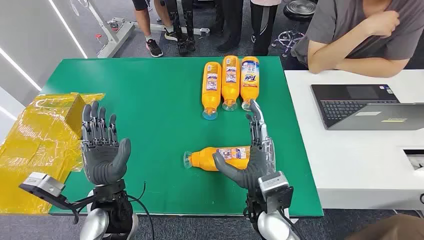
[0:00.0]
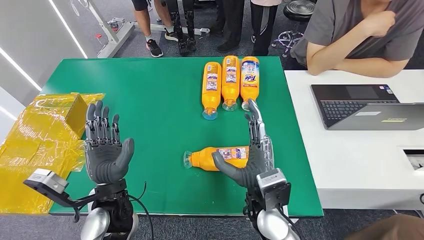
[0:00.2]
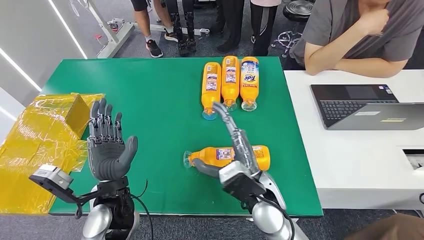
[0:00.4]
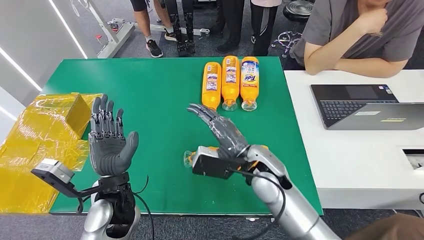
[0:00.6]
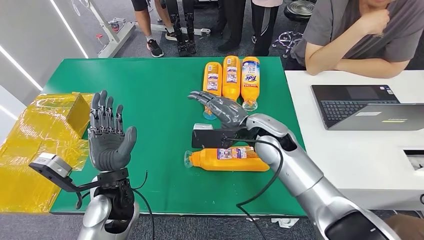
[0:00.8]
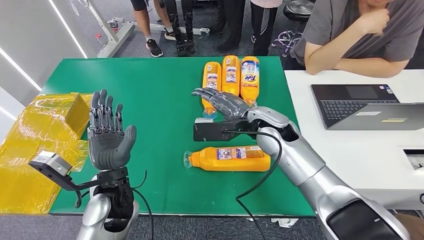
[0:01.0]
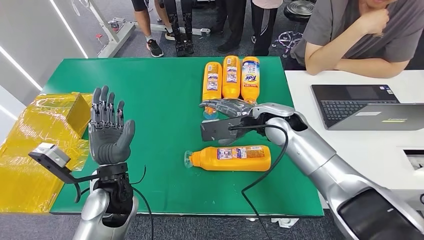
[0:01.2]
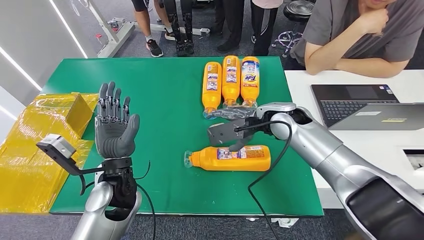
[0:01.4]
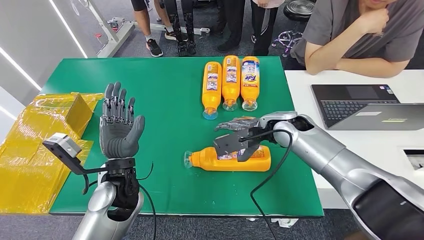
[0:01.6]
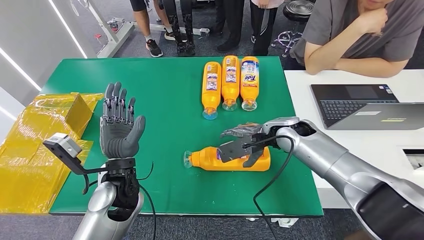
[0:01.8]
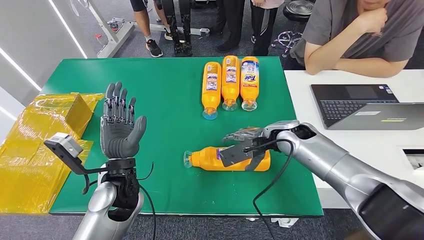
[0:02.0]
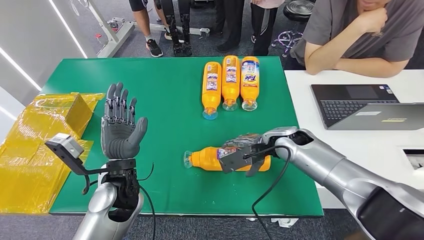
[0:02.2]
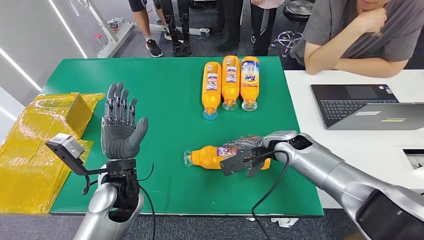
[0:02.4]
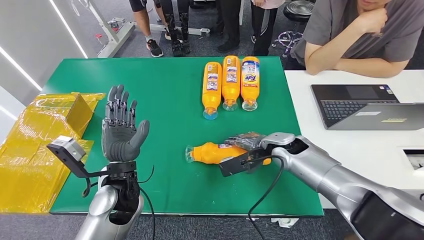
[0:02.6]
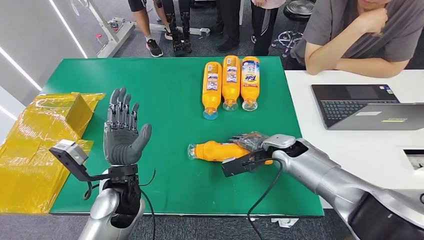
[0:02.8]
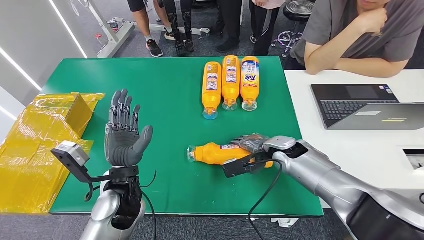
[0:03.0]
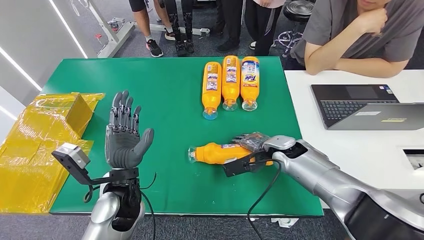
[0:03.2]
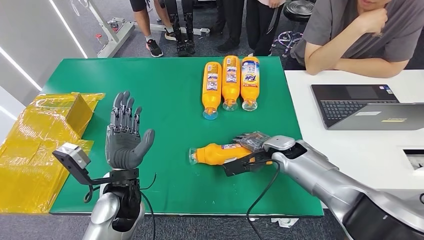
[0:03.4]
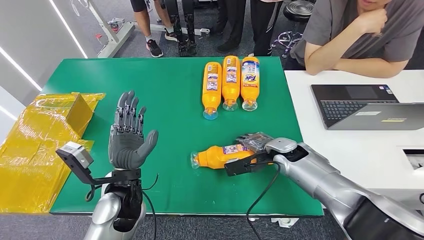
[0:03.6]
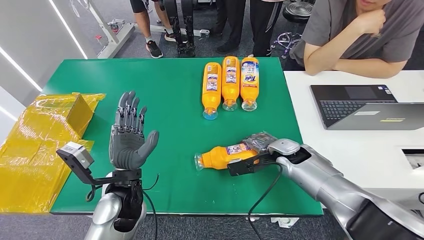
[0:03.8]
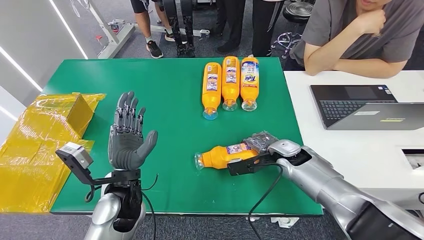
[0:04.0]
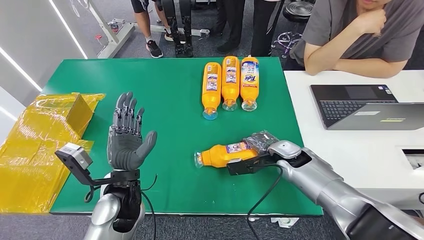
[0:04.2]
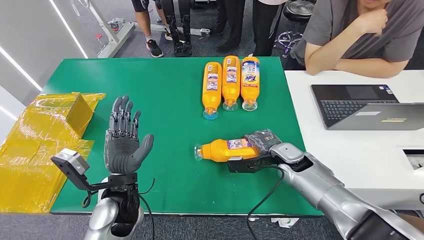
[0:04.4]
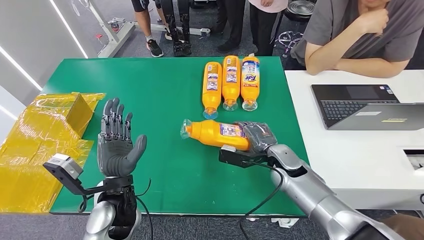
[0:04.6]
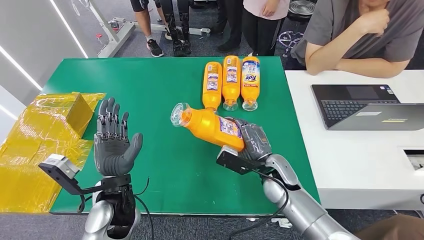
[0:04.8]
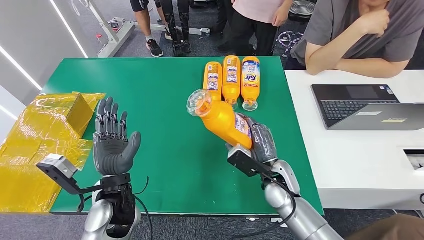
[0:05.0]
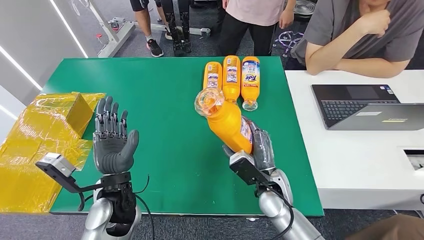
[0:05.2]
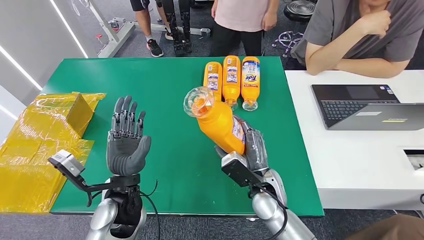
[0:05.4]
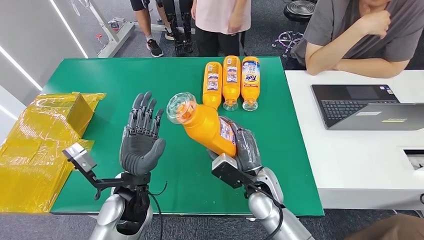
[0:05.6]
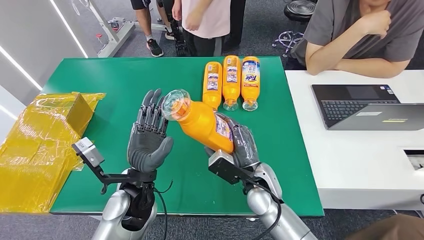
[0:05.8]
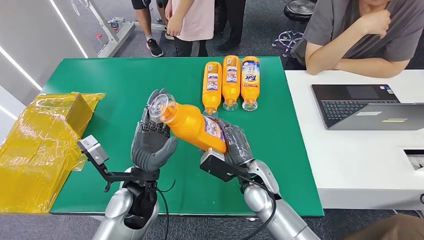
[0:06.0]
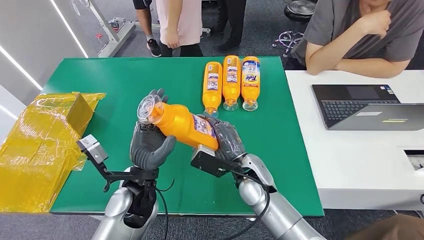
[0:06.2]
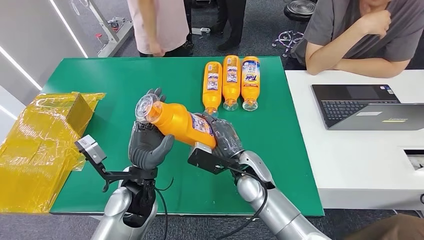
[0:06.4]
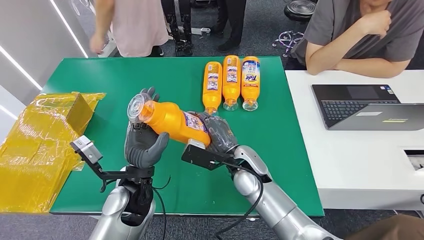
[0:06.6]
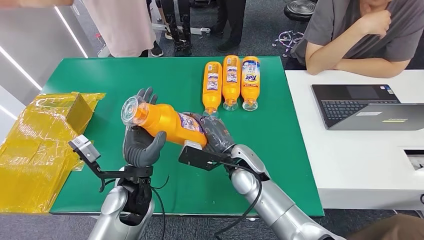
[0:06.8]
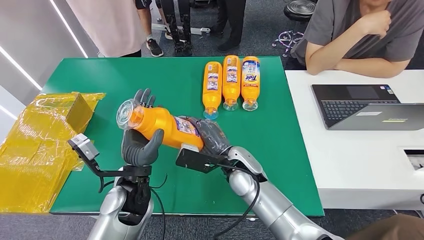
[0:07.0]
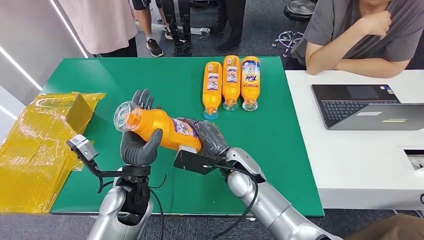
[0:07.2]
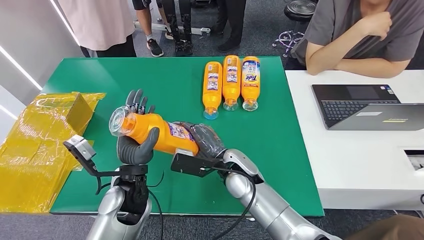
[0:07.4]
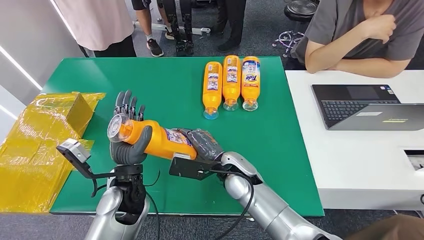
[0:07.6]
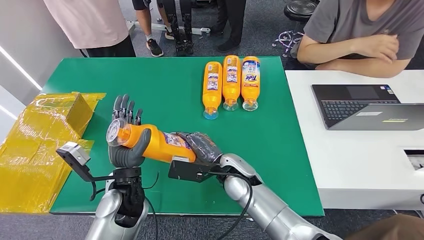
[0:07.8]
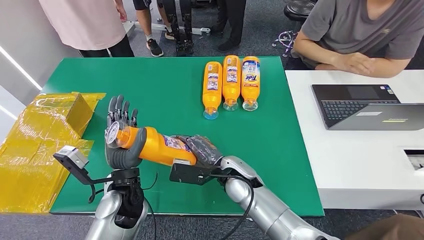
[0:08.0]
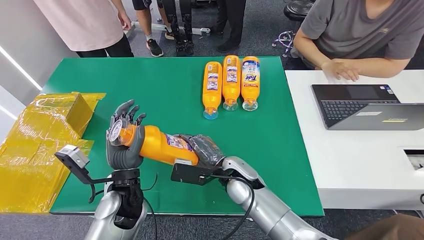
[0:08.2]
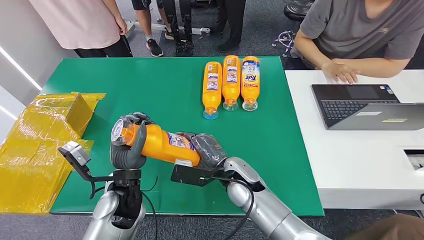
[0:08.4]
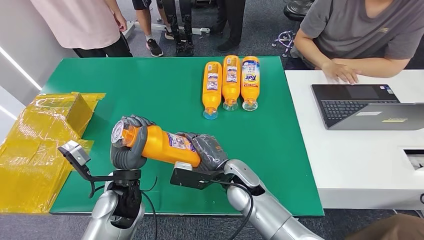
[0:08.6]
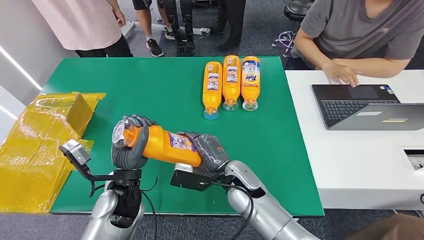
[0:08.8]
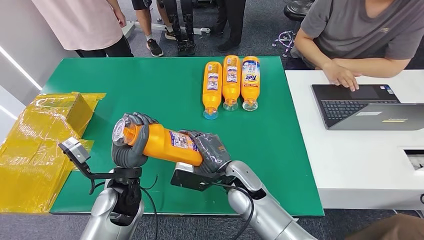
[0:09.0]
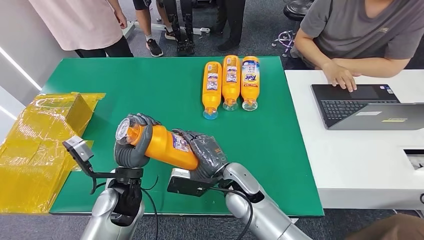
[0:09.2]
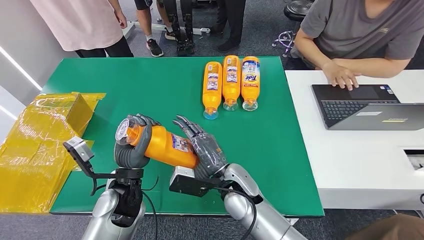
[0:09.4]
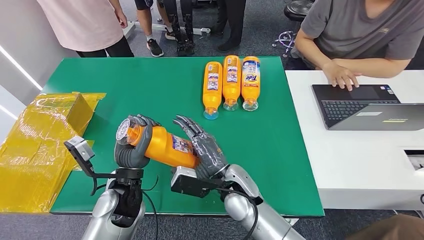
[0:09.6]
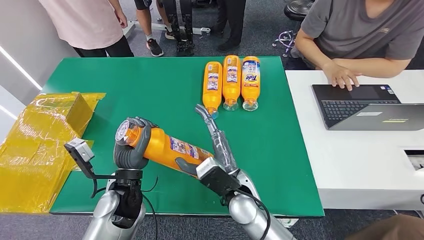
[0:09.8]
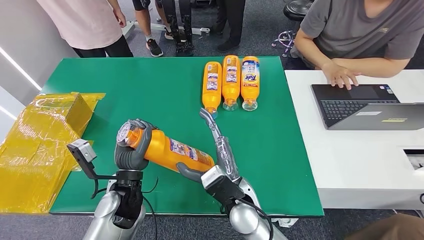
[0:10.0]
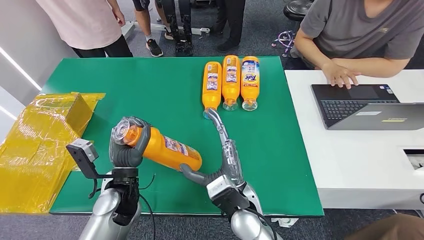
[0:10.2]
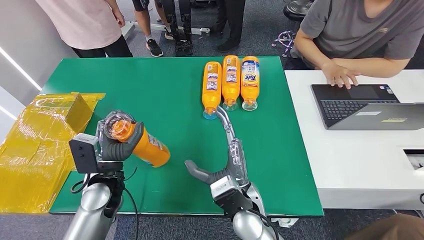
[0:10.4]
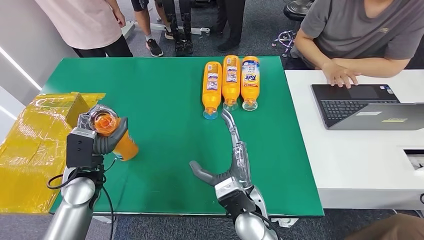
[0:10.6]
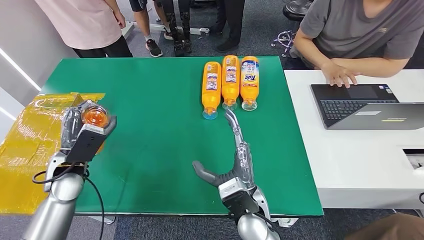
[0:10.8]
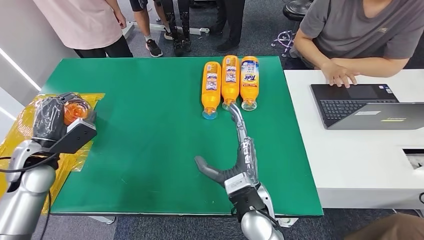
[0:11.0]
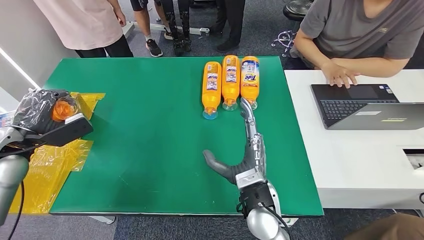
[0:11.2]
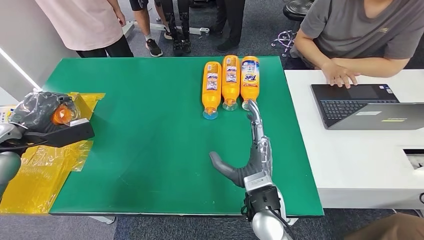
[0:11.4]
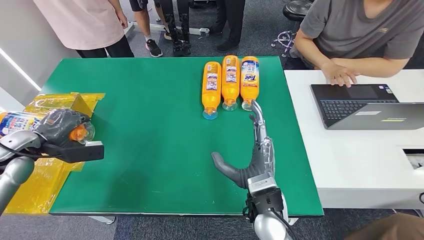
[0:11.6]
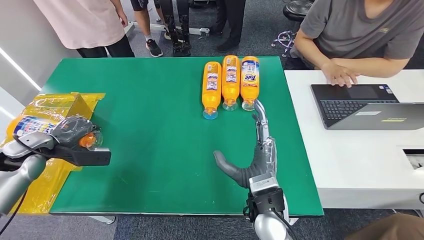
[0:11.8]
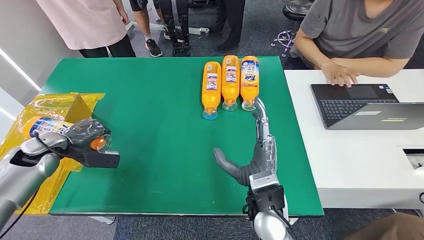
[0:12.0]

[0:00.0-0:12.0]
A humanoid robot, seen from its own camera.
Step, 0:00.0 to 0:06.2: Pick up the bottle from the table.
0:01.6 to 0:03.0: The right hand shifts roughly 10 cm downward.
0:03.0 to 0:04.4: The hands stay close to where they were, moving slightly.
0:07.6 to 0:09.0: The hands make only small movements.
0:09.0 to 0:10.4: The right hand moves backward, about 5 cm. The left hand travels to the left by about 5 cm.
0:10.4 to 0:12.0: The left hand is displaced to the left and forward by approximately 20 cm.

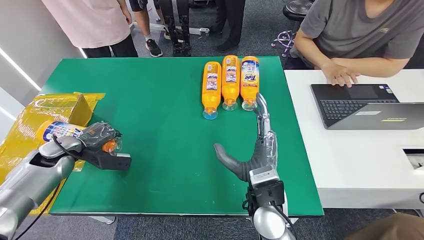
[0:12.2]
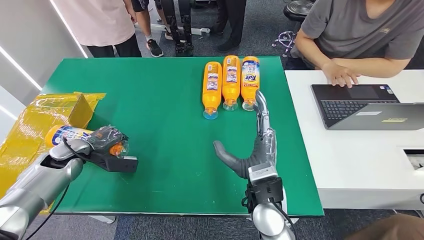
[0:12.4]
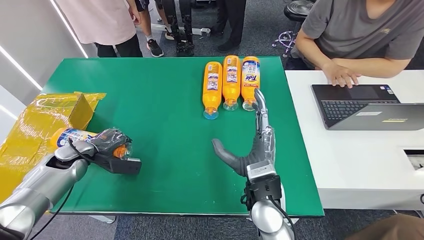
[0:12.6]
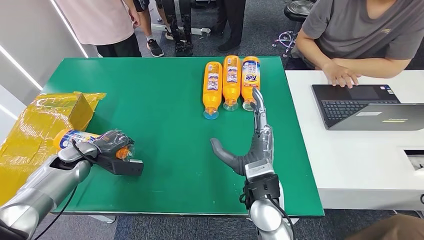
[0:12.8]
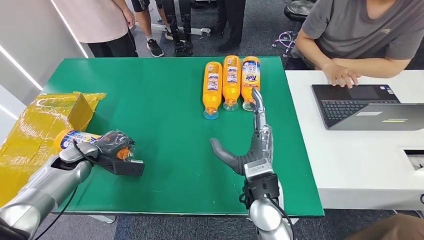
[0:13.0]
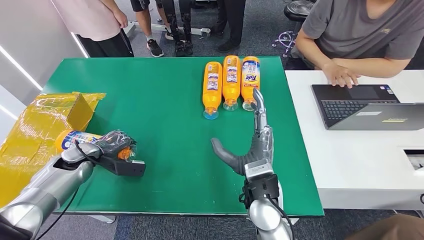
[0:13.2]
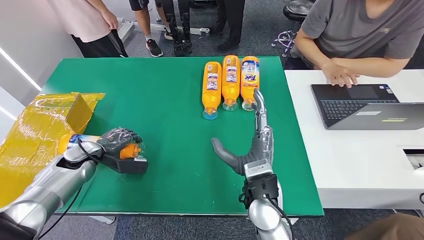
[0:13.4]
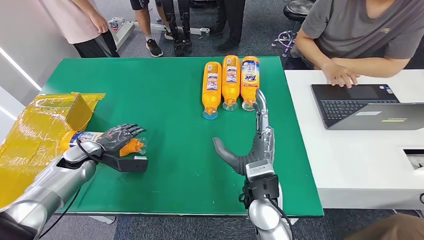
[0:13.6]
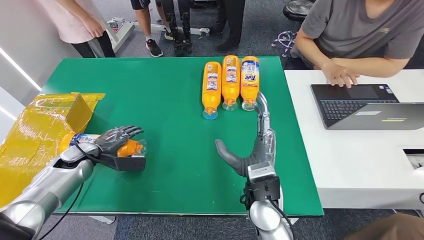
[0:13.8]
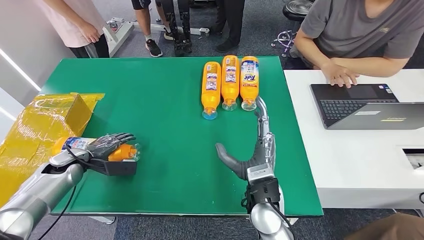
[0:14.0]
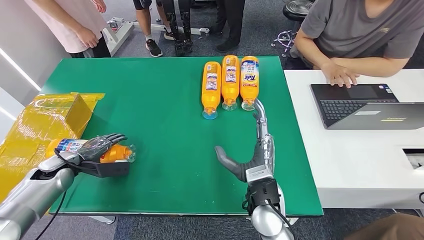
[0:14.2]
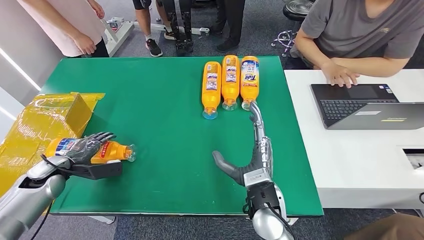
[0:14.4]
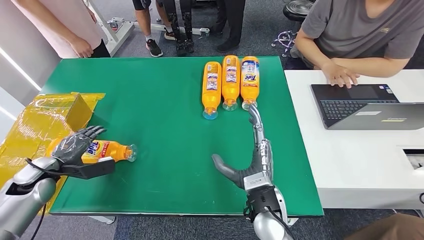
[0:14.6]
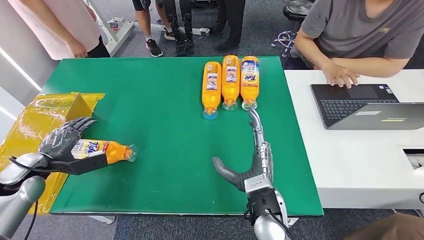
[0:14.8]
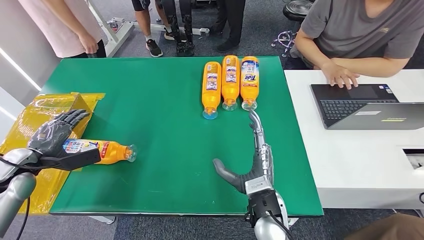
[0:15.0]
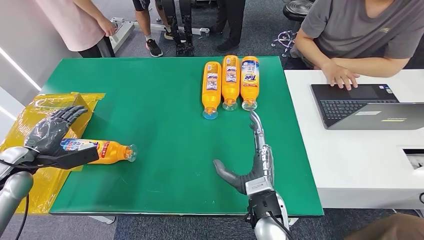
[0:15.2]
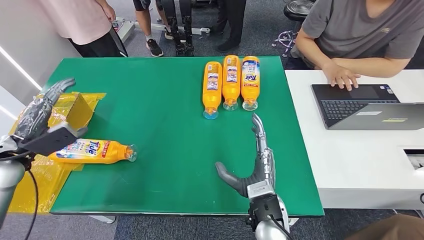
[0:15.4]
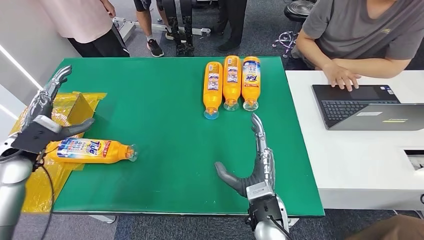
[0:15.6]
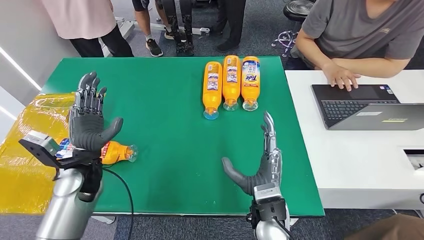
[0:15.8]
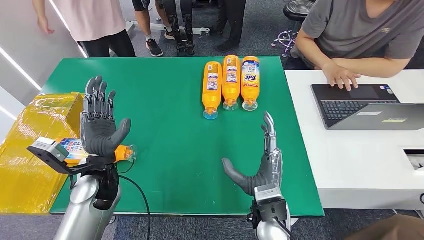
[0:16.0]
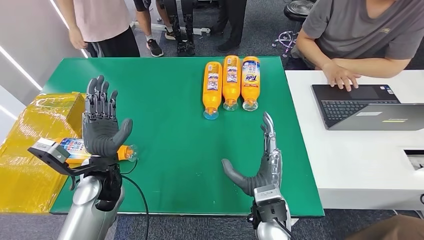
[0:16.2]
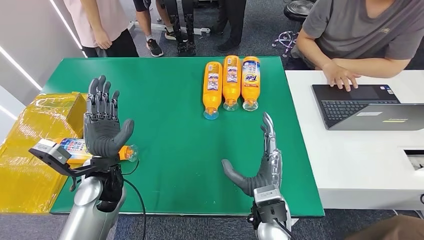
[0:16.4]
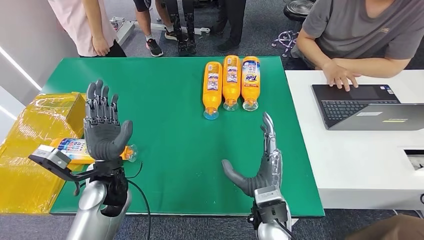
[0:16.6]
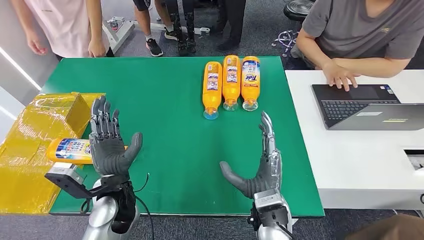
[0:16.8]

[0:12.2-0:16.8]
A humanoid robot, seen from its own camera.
Step, 0:12.2 to 0:16.6: Turn the bottle to the front side.
0:12.2 to 0:13.8: There are only small adjustments of the hands.
0:13.8 to 0:15.2: The left hand moves to the left, upward and backward, some 15 cm.
0:15.2 to 0:16.8: The left hand heads to the right, covering some 30 cm.
